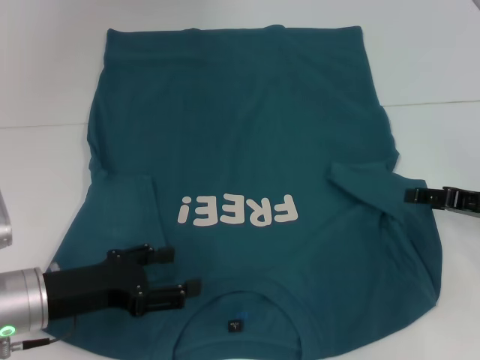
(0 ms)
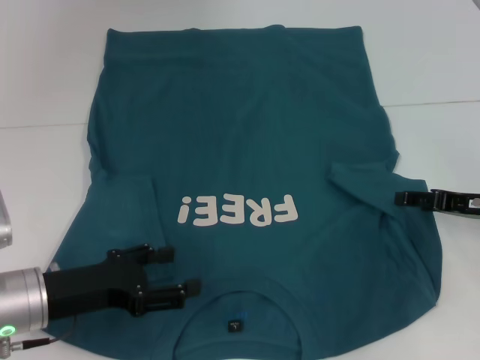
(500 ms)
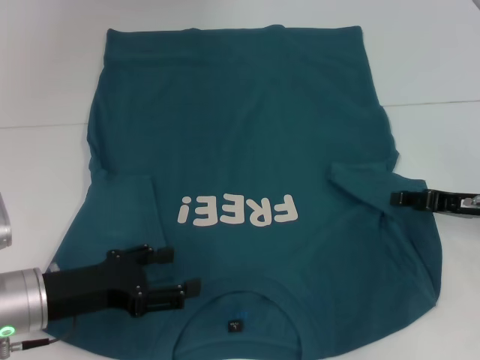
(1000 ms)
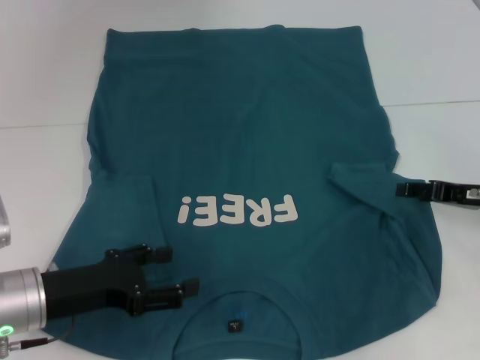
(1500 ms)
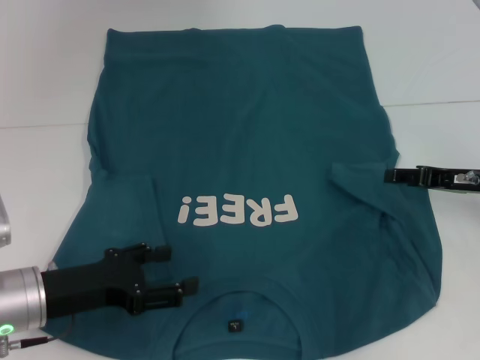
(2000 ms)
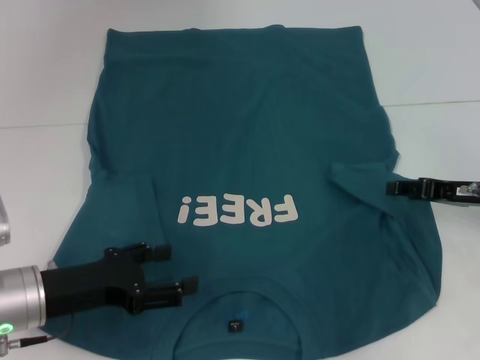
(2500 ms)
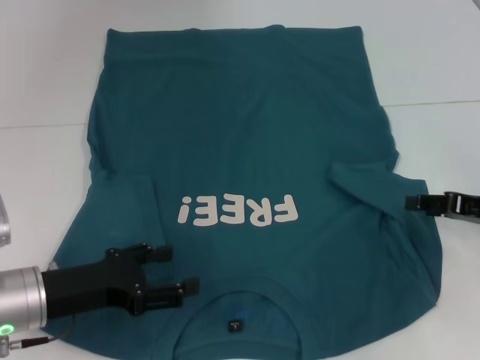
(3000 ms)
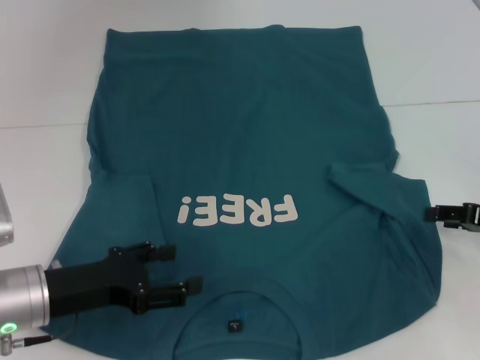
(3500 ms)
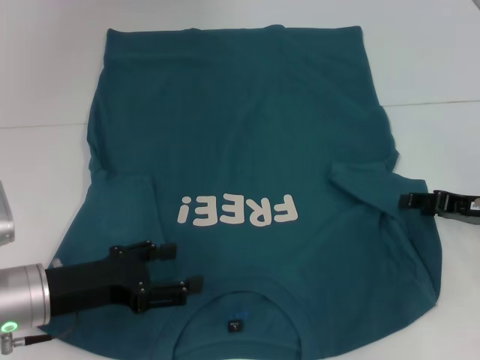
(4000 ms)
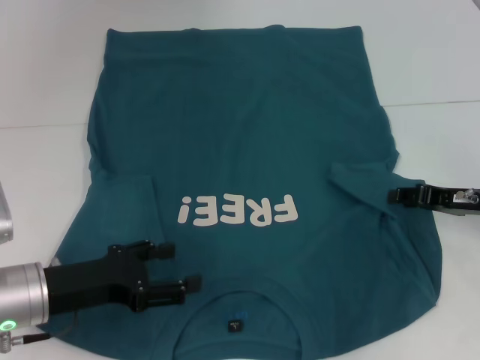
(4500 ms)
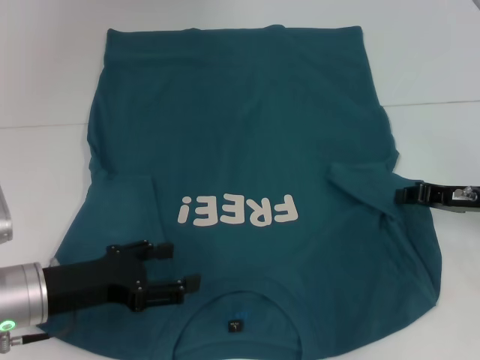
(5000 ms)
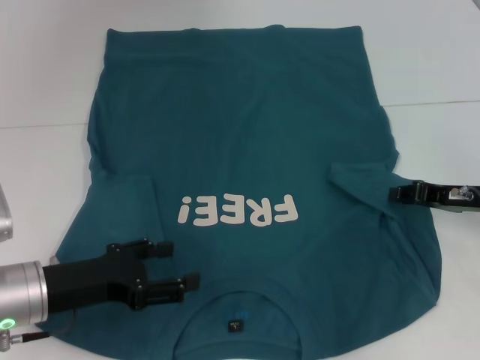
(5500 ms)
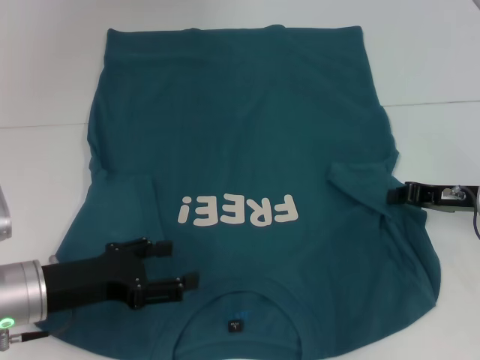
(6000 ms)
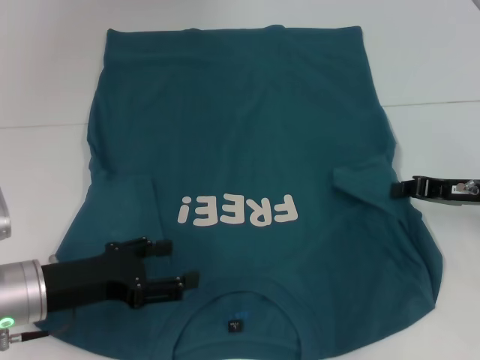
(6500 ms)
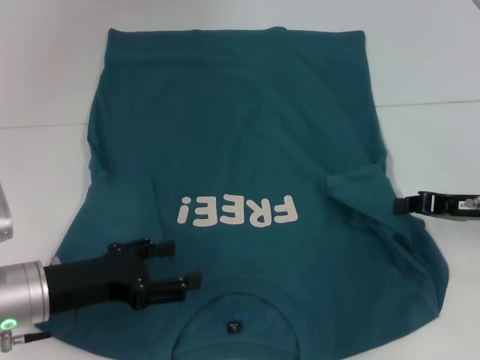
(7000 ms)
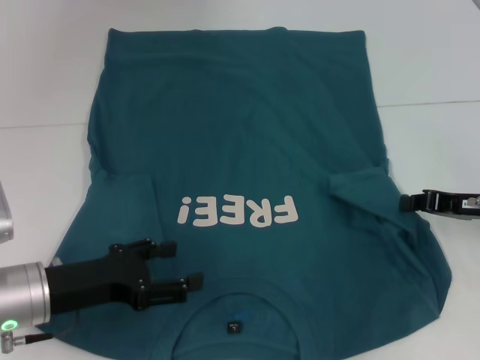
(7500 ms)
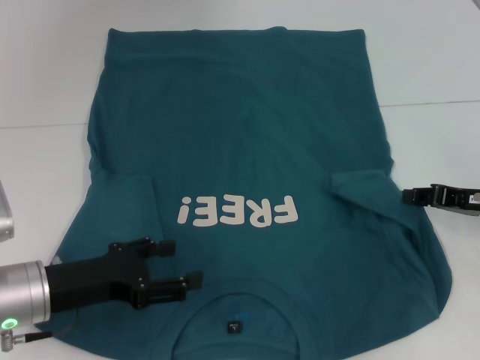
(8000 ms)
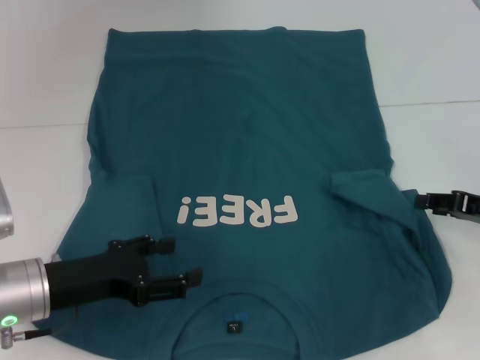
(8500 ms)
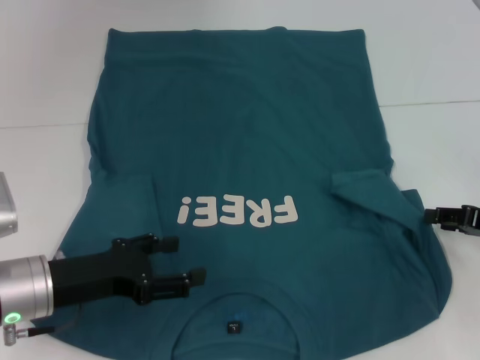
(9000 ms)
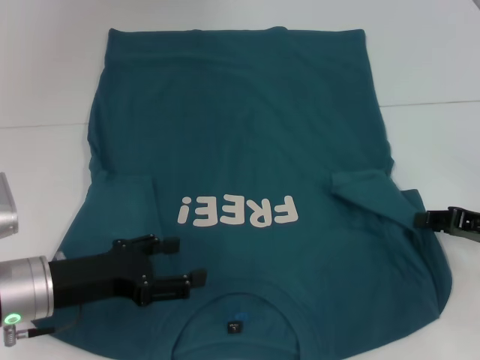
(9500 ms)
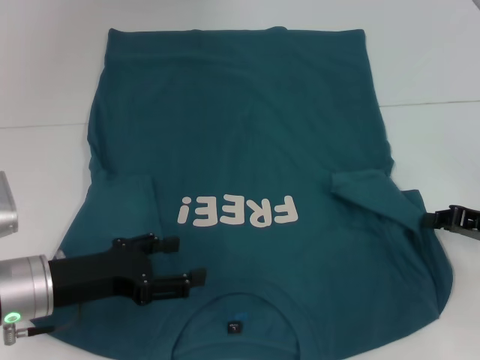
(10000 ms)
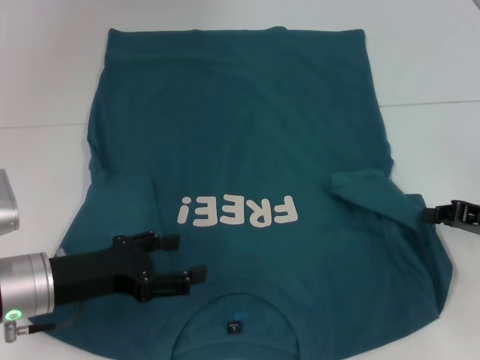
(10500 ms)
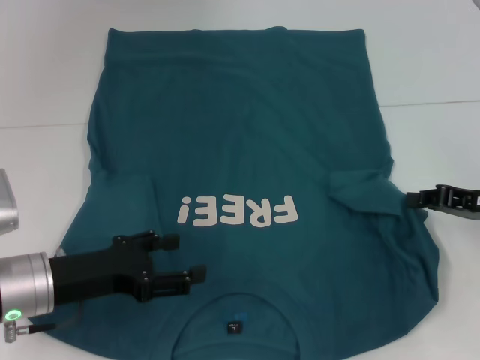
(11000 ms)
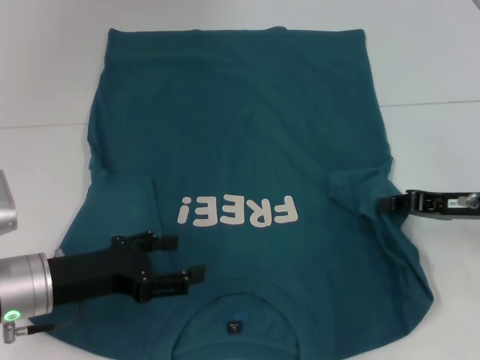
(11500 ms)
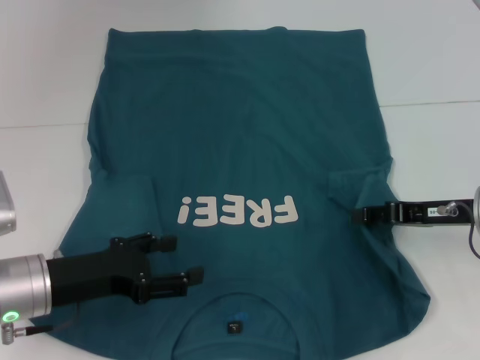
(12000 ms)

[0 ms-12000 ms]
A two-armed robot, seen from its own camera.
0 ms to 2000 ms: The grippers move only a little.
4000 ms to 6000 ms: The right gripper closes up.
6000 ms to 8000 ms: The grippers stay close to where they were, moving slightly.
8000 ms to 10000 ms: The right gripper opens, then closes again.
10000 ms to 12000 ms: The right gripper shifts about 5 cm to the left.

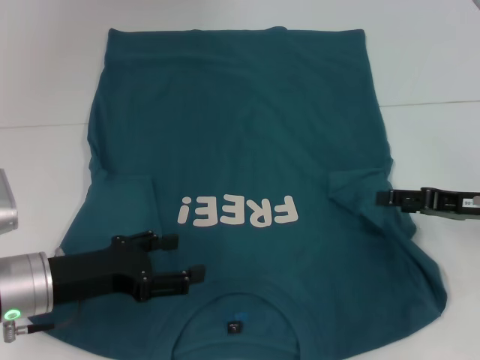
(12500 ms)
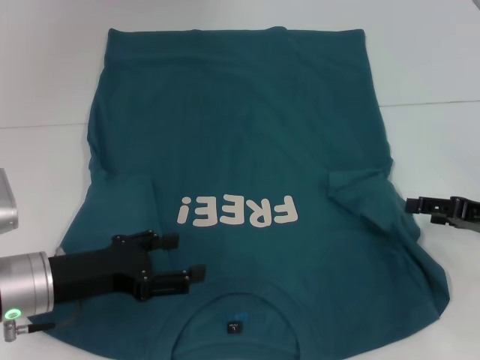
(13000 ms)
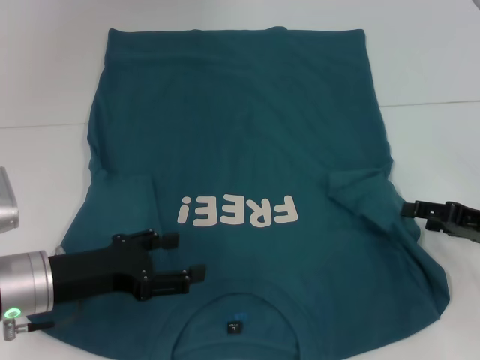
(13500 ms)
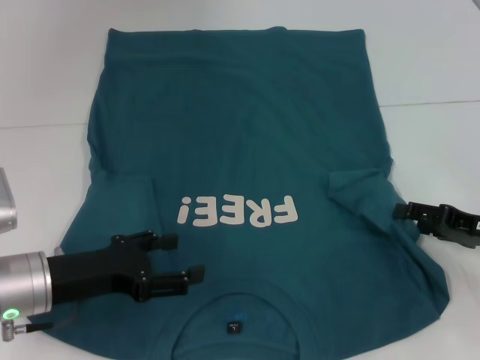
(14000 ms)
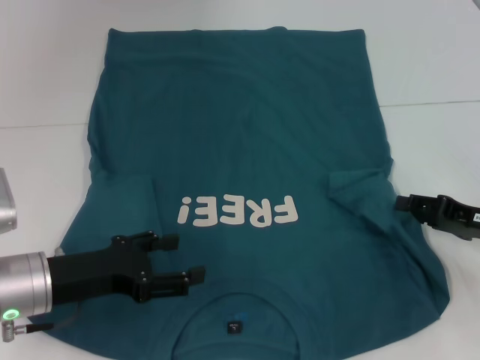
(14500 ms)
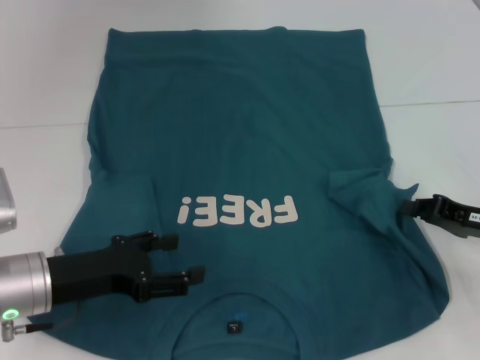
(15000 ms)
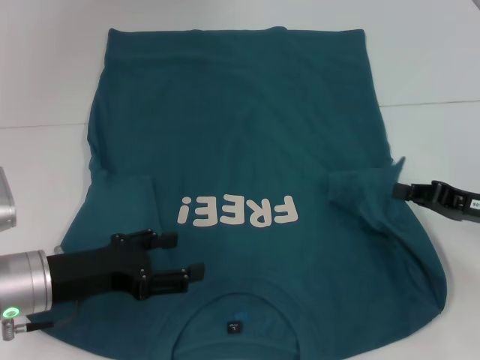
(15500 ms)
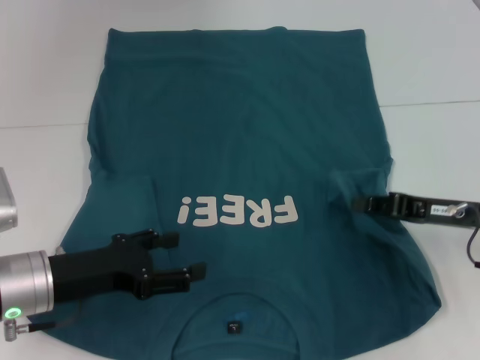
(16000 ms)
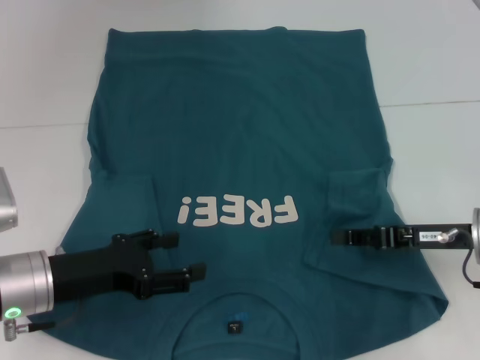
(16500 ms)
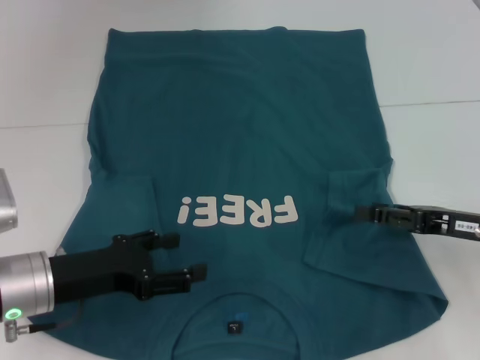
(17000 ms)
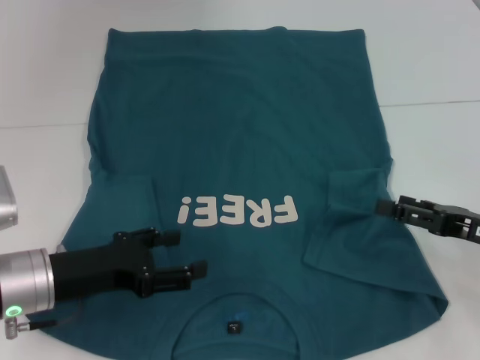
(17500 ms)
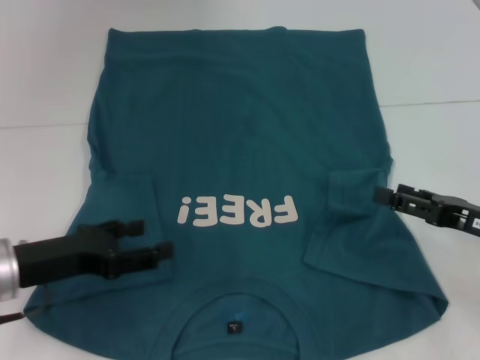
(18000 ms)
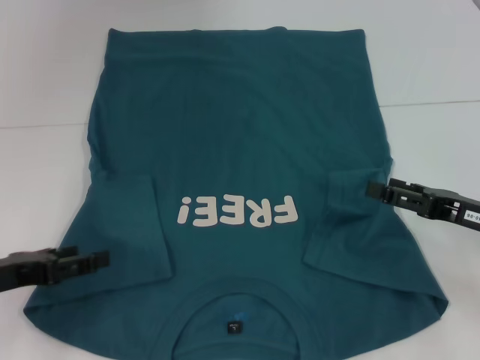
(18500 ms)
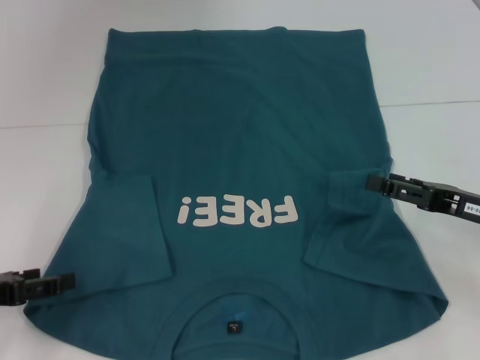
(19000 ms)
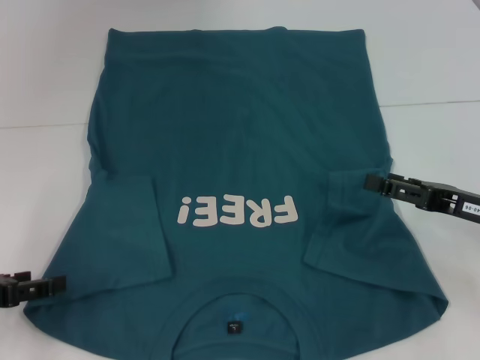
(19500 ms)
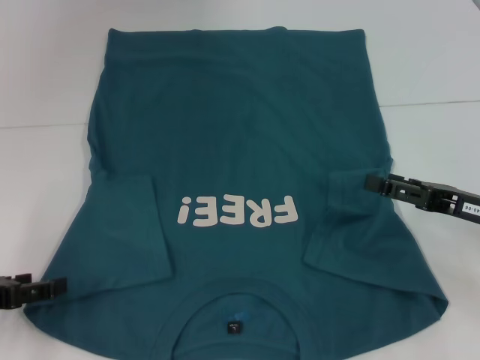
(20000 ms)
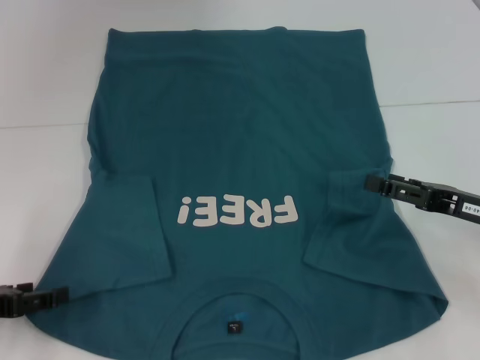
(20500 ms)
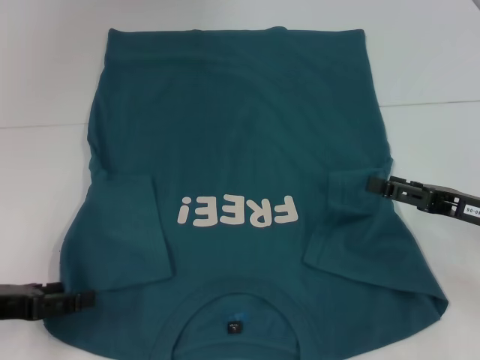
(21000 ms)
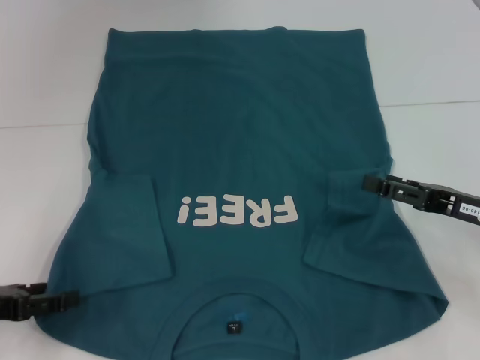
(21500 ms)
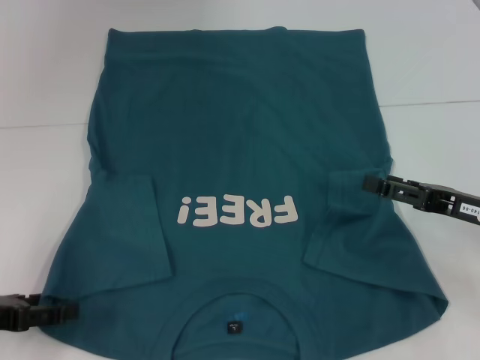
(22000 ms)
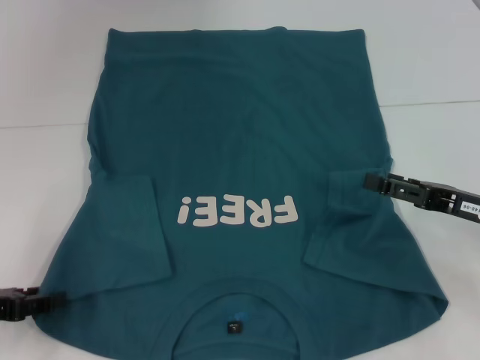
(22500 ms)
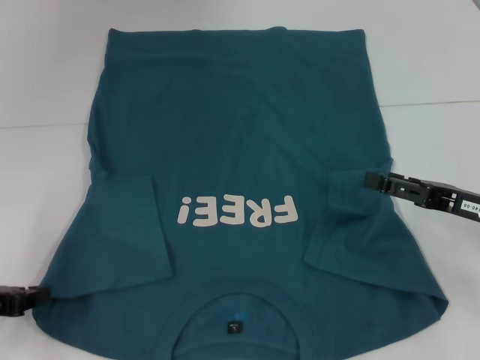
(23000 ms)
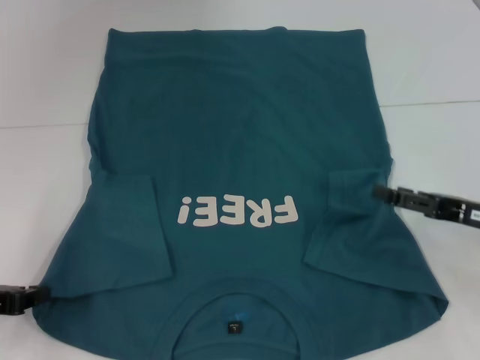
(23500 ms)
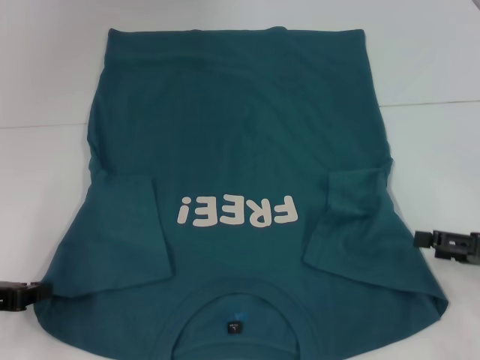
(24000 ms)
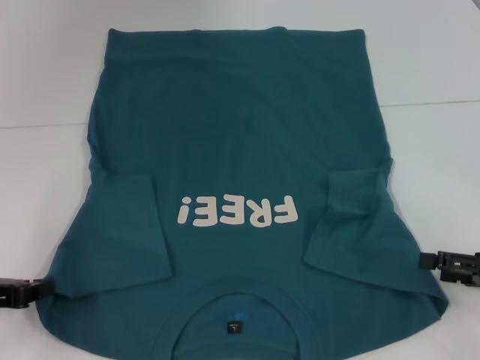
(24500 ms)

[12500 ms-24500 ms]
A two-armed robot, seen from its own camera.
Step, 12500 ms to 16500 ms: Fold the bottom right sleeve to the right.
12500 ms to 14500 ms: There are only small adjustments of the grippers.
14500 ms to 16500 ms: The right gripper travels to the left by approximately 5 cm, and closes.
16500 ms to 18500 ms: The right gripper opens its fingers. Meanwhile the left gripper is displaced to the left by approximately 10 cm.
18500 ms to 20500 ms: The grippers move only a little.
22500 ms to 24500 ms: The left gripper closes up, while the right gripper moves to the right, roughly 5 cm.

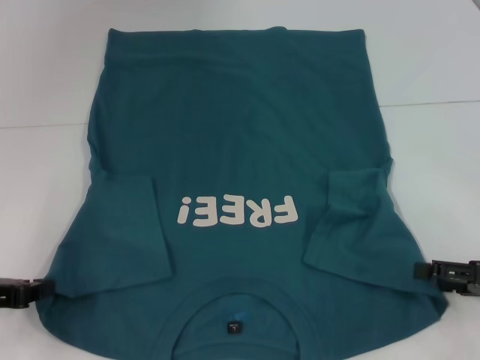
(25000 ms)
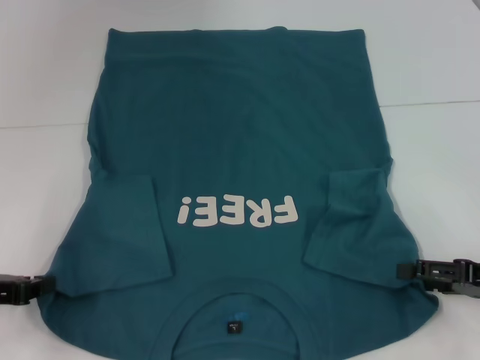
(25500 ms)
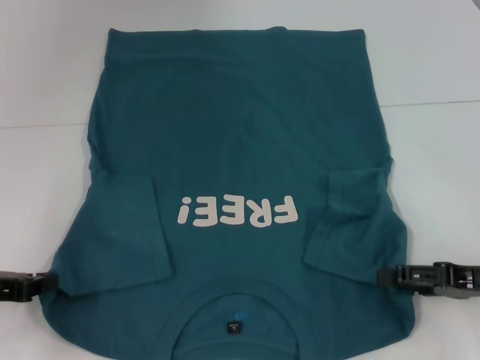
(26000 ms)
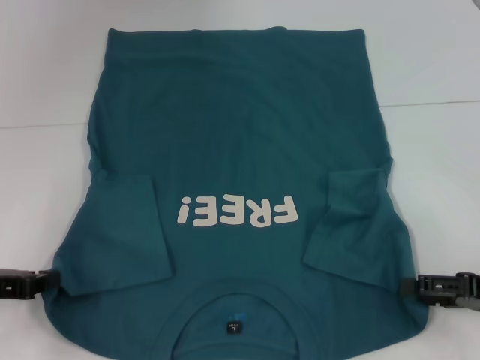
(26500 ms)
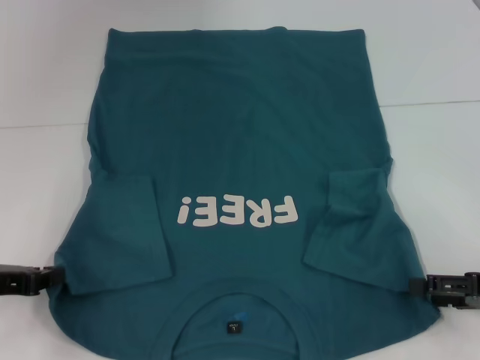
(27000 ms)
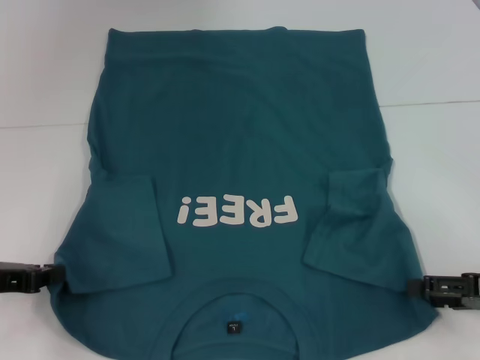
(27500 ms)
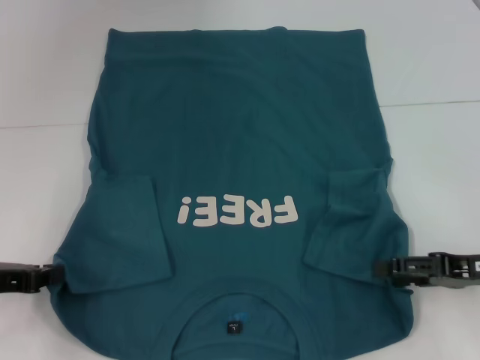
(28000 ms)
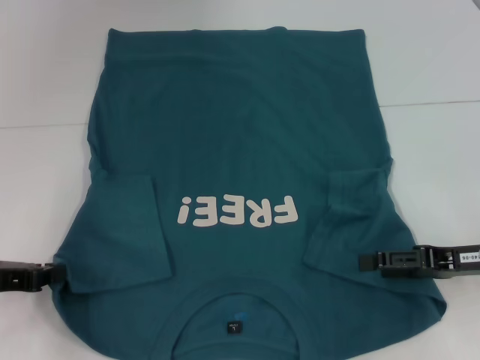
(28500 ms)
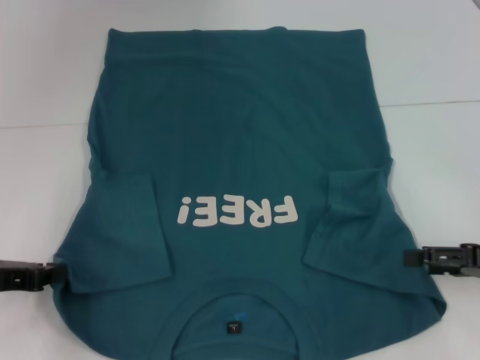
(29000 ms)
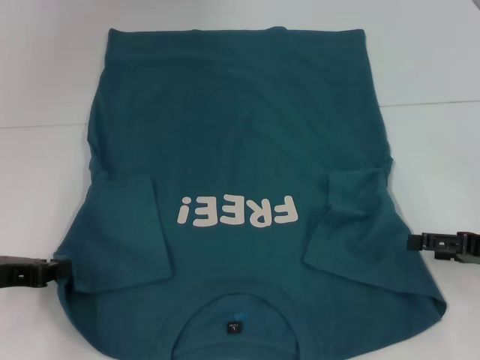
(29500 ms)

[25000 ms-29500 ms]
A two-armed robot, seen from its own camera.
25000 ms to 27000 ms: There are only small adjustments of the grippers.
